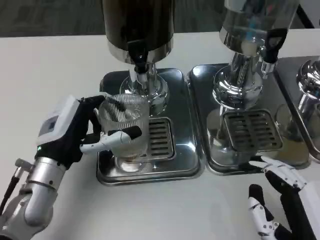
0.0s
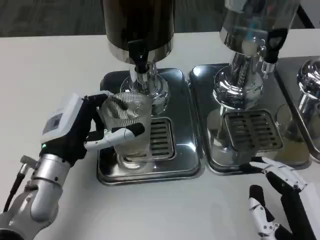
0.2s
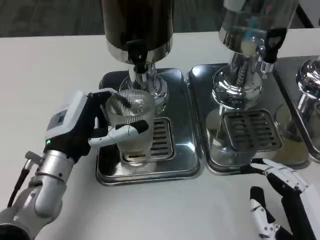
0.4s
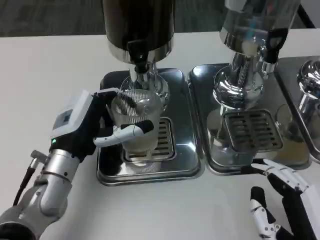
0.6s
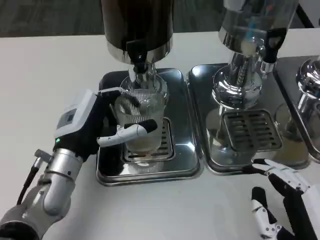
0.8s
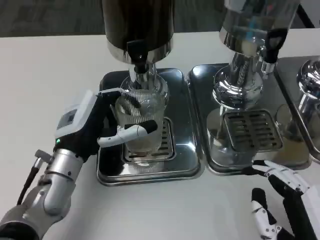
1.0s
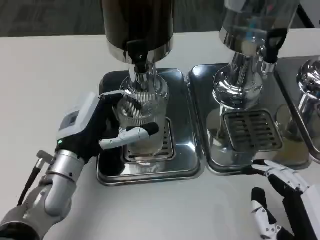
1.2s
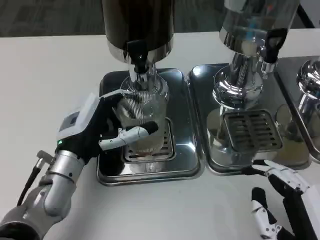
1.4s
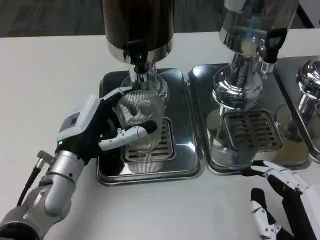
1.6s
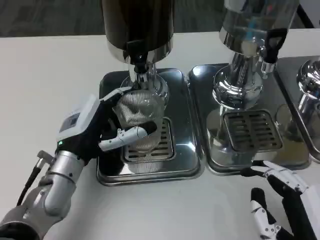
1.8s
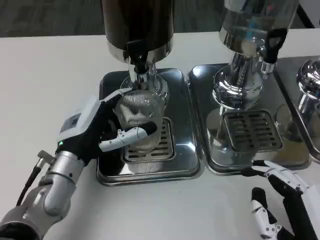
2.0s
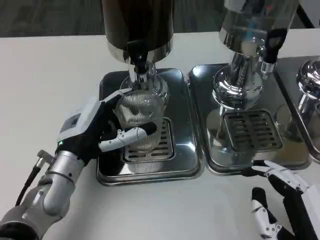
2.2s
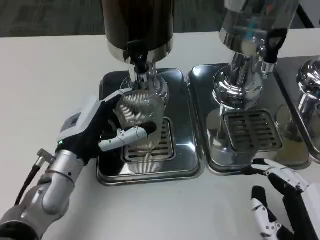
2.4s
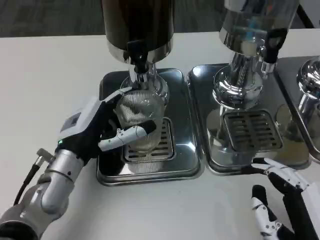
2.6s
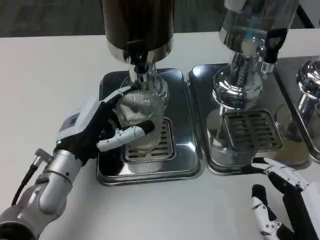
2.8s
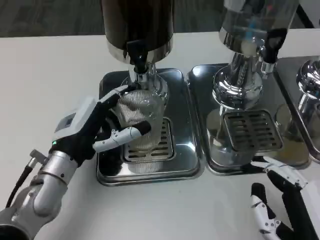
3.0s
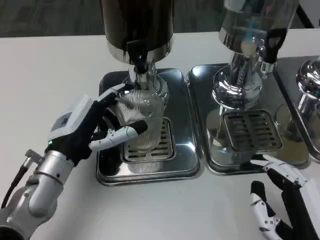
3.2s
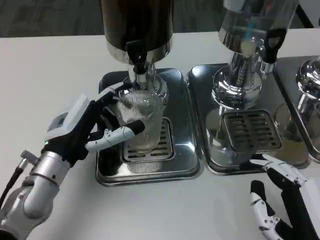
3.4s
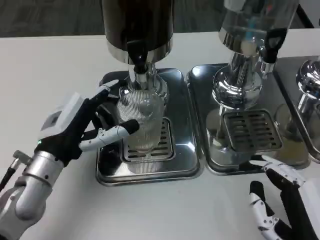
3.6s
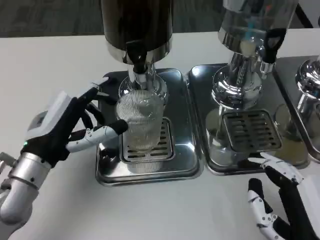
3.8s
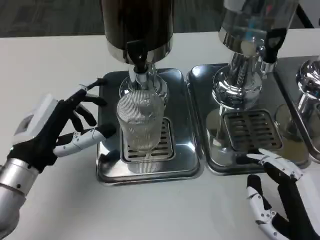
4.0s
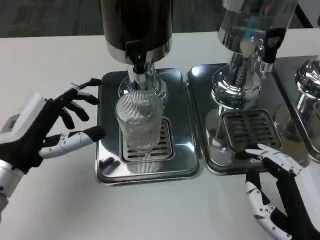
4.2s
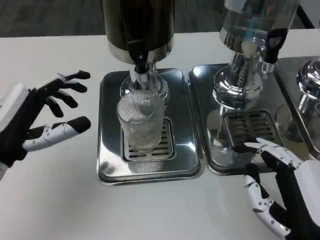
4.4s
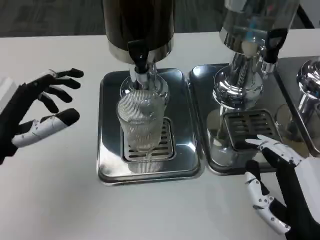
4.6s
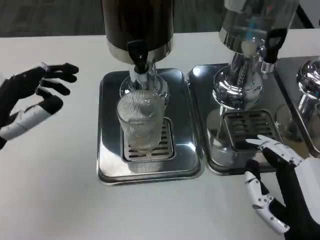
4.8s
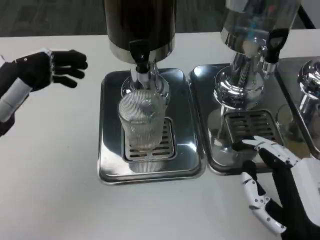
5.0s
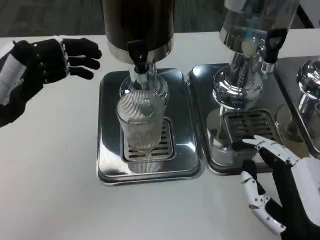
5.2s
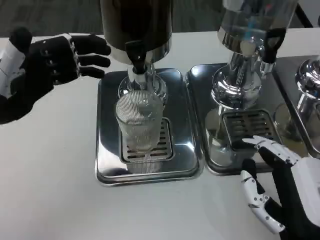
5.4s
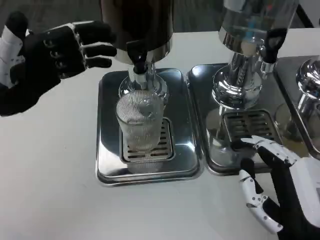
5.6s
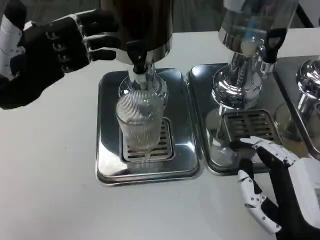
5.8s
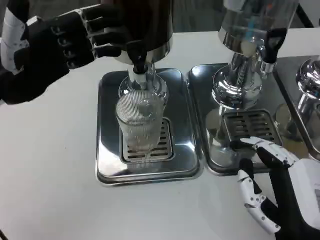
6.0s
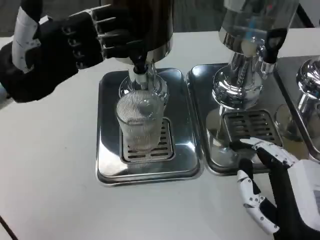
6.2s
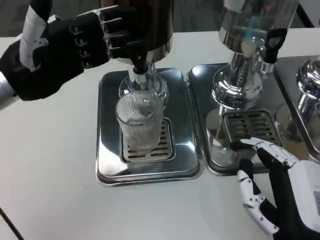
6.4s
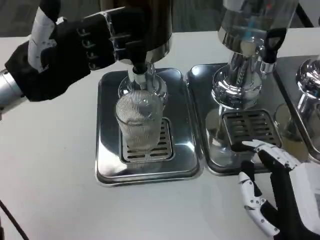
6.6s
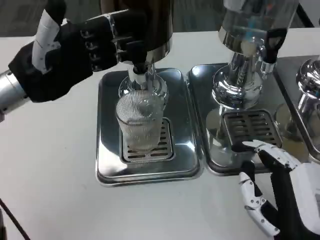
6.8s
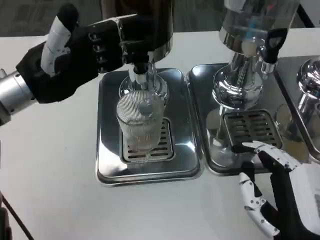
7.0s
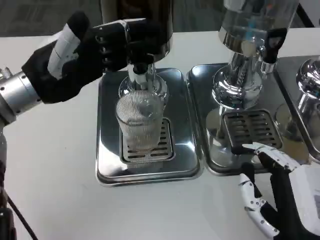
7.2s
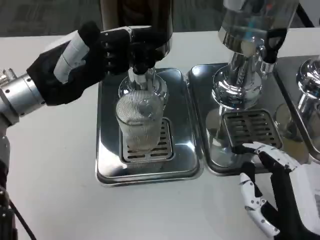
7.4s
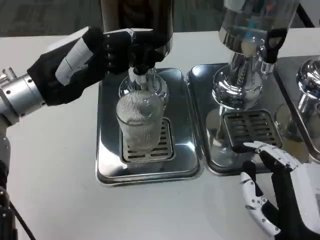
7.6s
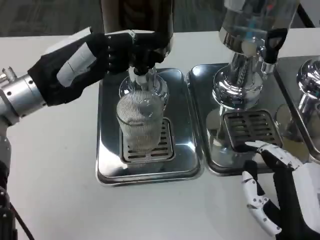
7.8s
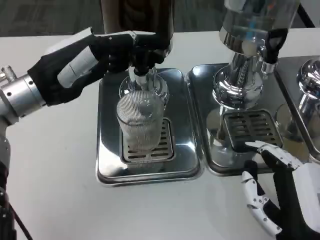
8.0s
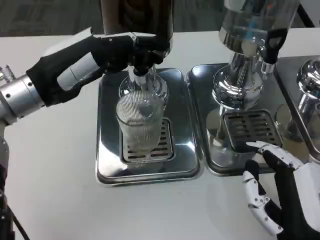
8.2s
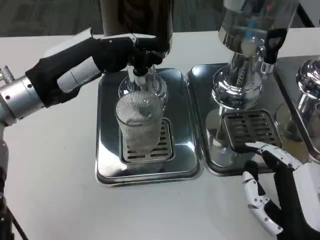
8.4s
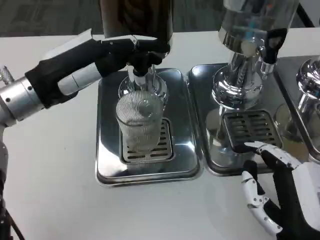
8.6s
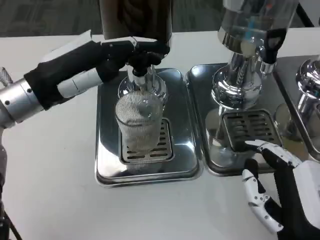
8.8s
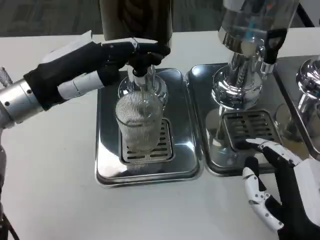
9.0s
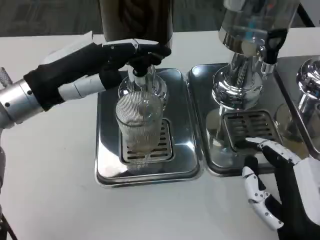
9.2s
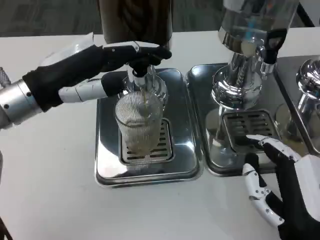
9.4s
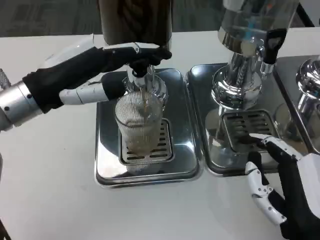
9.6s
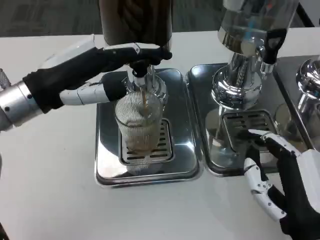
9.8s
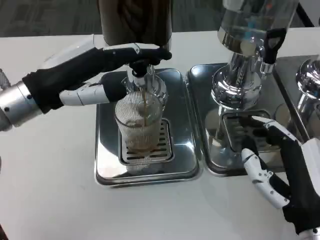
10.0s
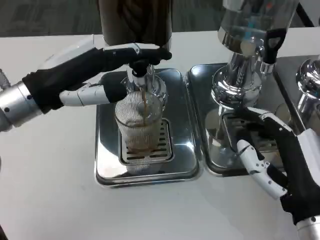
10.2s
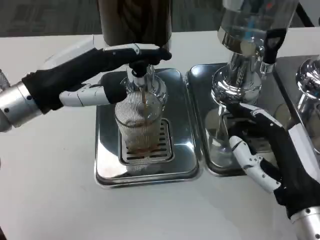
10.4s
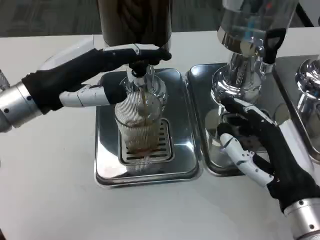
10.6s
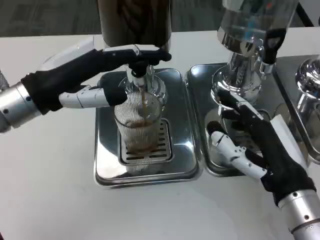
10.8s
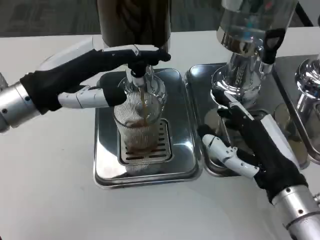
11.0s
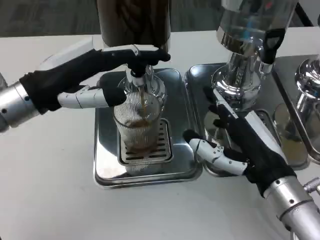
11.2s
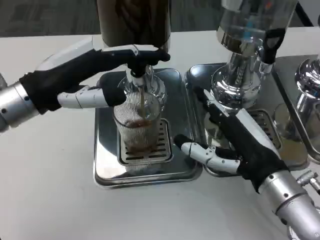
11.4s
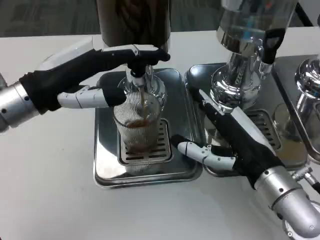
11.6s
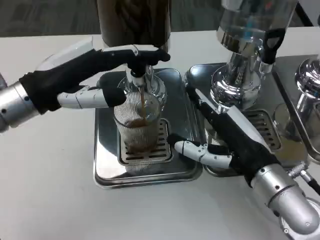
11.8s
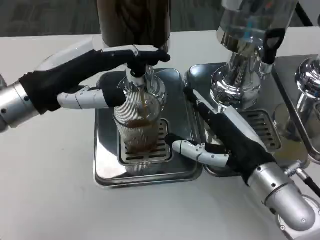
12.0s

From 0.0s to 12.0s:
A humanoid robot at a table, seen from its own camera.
Task of the whole recording: Grasp the cup under the faucet to collect the drink, then remove the cup.
From 0.0s to 1.6s: The hands stay close to where they were, moving slightly.
From 1.6s to 3.0s: Neither hand changes place.
From 3.0s to 4.4s: The left hand is displaced to the left by some 10 cm.
From 4.4s to 6.0s: The left hand moves upward and forward, approximately 10 cm.
From 6.0s to 7.6s: The hands stay close to where they were, moving slightly.
From 7.6s to 9.0s: The hands make only small movements.
From 9.0s to 10.4s: The right hand shifts by roughly 5 cm.
From 10.4s to 12.0s: The right hand travels forward by approximately 5 cm.

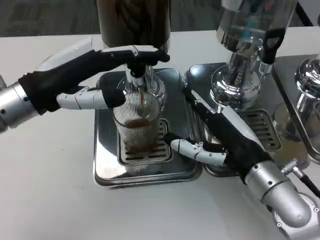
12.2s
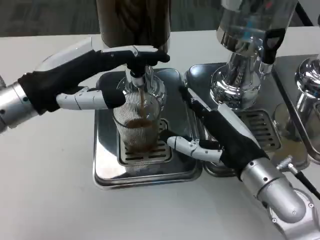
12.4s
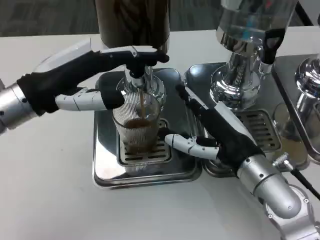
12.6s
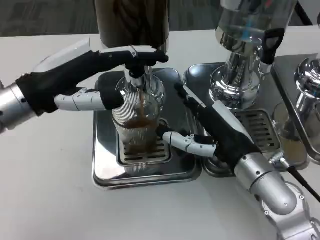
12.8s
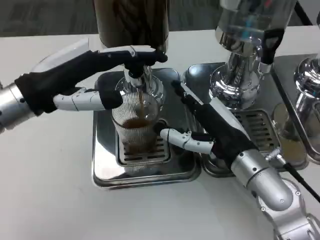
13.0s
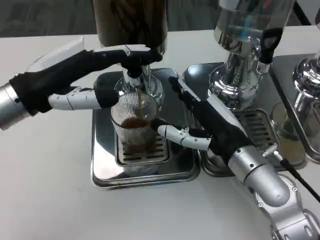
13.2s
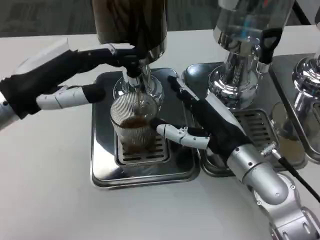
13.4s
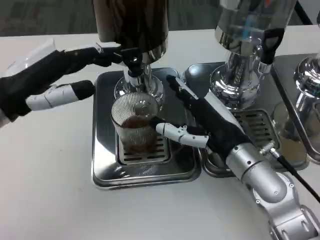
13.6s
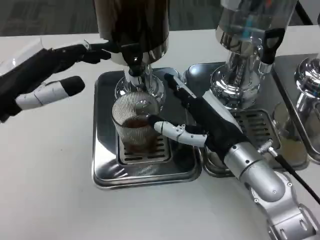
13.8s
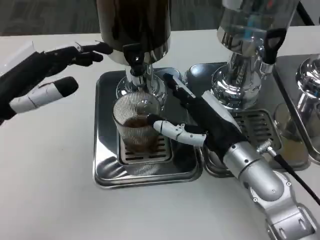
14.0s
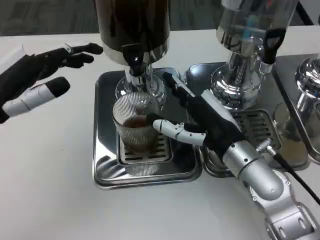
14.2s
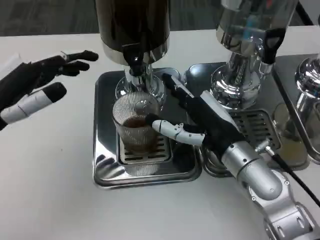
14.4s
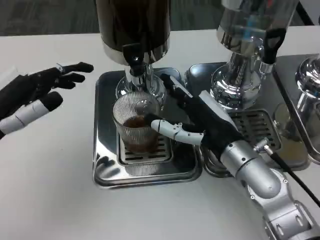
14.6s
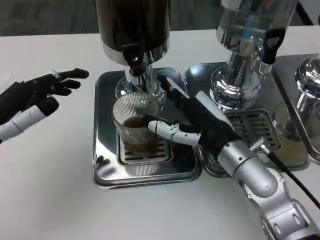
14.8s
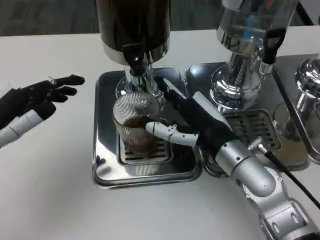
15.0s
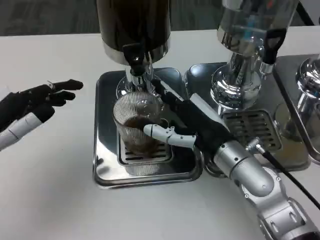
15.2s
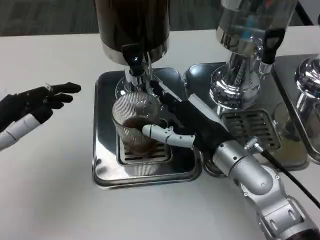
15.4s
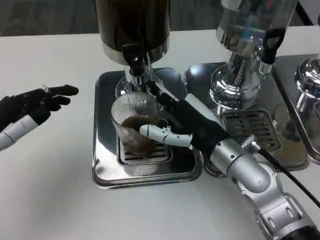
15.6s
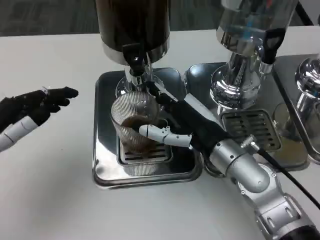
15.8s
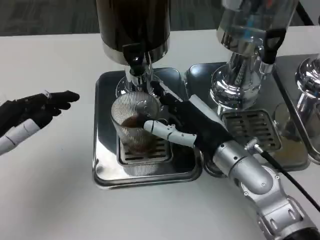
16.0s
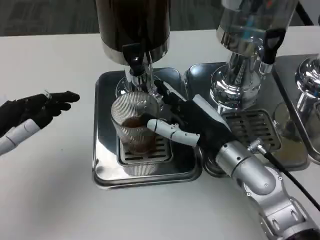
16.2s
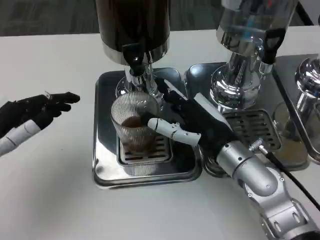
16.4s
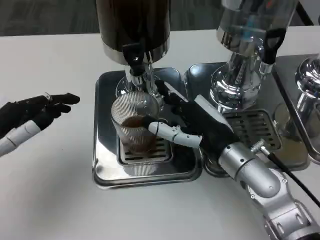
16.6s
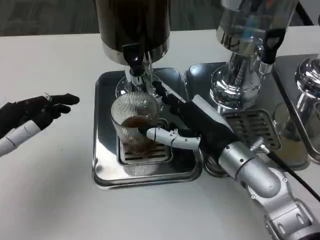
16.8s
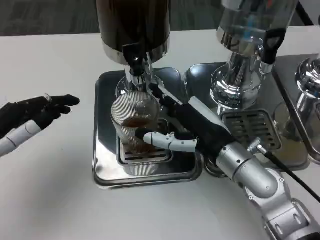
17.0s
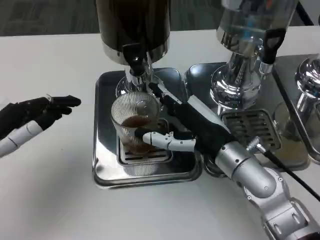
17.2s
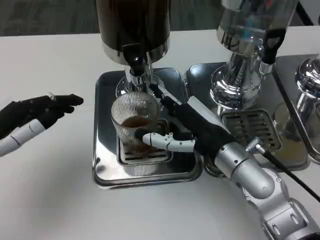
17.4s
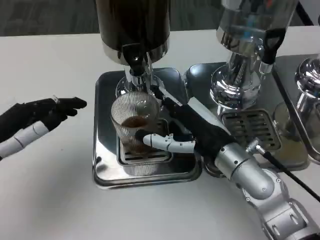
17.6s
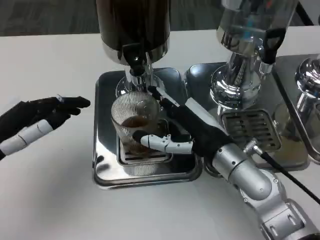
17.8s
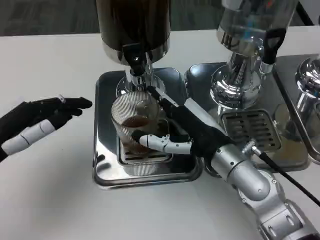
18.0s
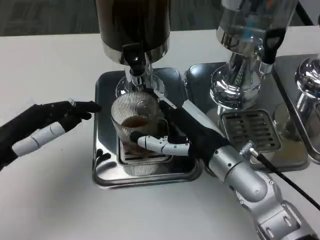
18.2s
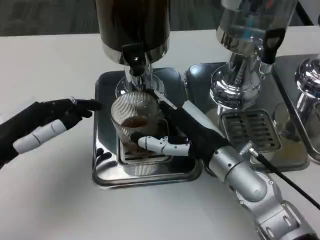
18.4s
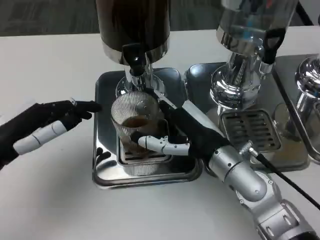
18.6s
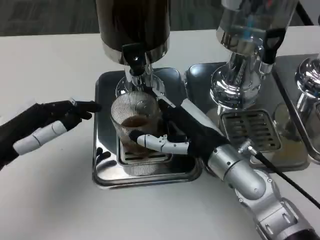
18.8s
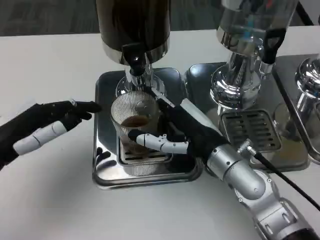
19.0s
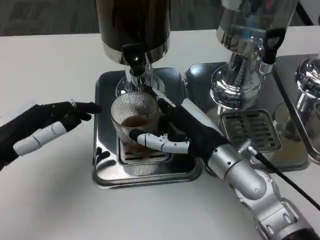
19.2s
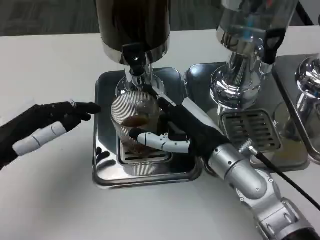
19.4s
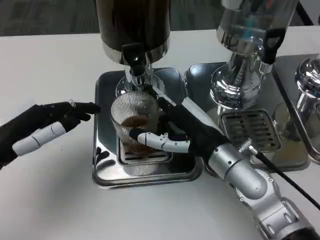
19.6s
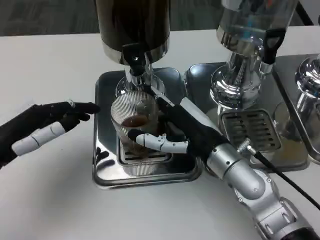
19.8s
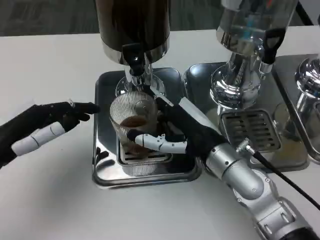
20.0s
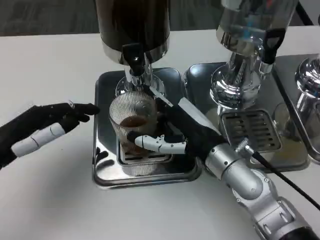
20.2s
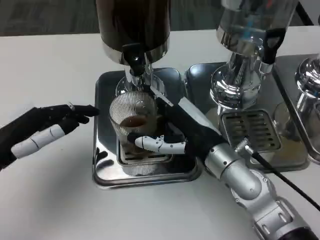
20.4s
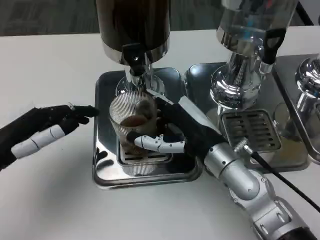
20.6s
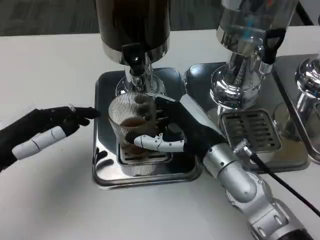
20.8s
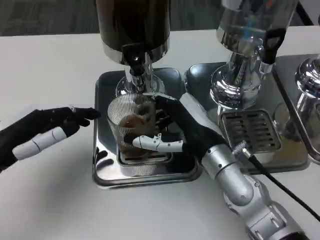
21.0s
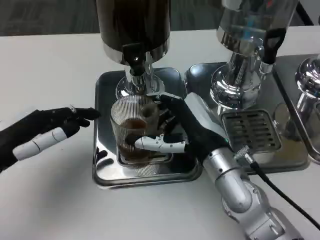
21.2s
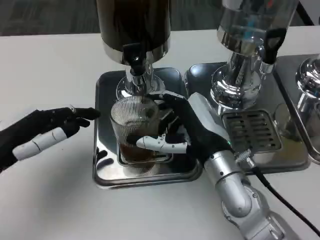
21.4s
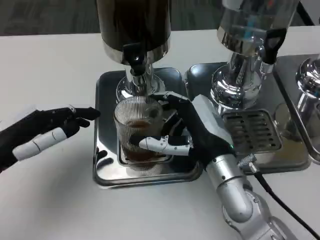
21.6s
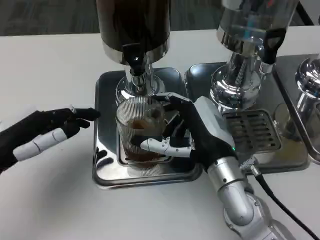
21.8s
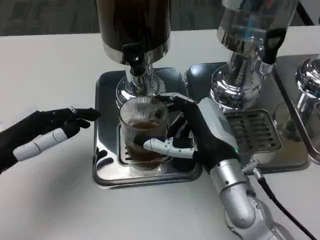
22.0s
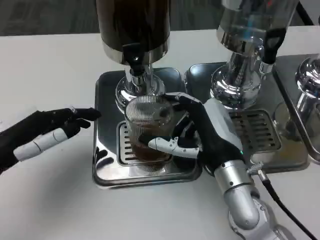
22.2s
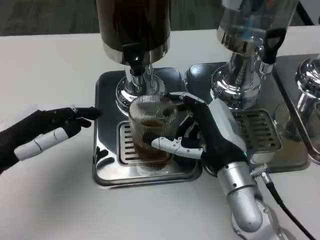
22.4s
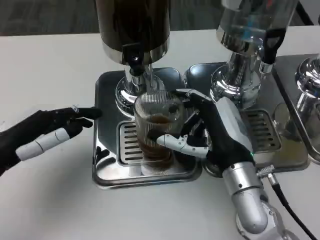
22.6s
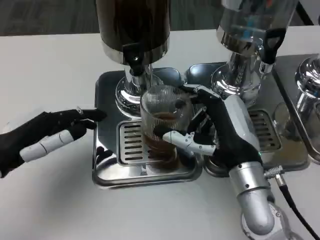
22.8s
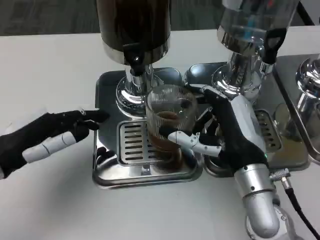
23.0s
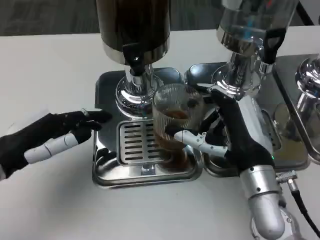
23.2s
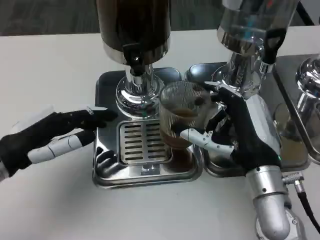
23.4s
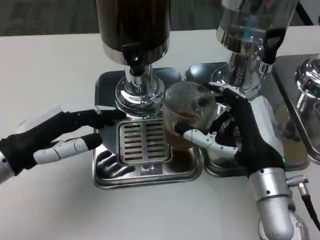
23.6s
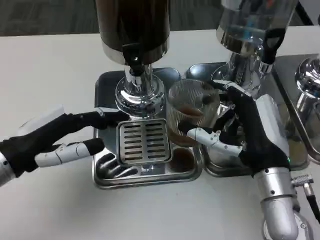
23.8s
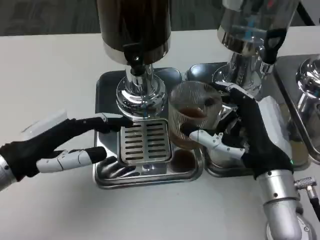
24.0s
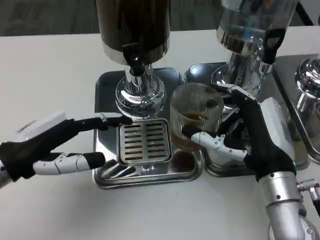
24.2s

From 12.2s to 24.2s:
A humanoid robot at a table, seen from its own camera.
Task of the whole recording: Grasp the cup under the faucet to collect the drink, then remove the cup.
From 13.8s to 15.2s: The left hand shifts by approximately 5 cm.
From 15.2s to 16.6s: Neither hand changes place.
From 16.6s to 18.2s: The hands move only a little.
From 18.2s to 19.8s: The two hands keep their place.
From 19.8s to 21.2s: The hands move only a little.
From 21.2s to 22.6s: The hands stay close to where they were, moving slightly.
